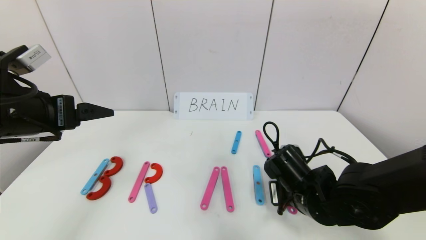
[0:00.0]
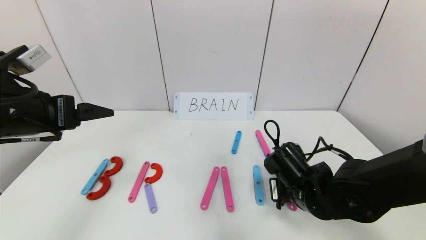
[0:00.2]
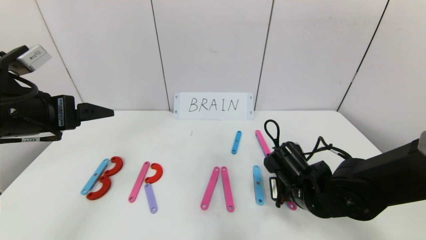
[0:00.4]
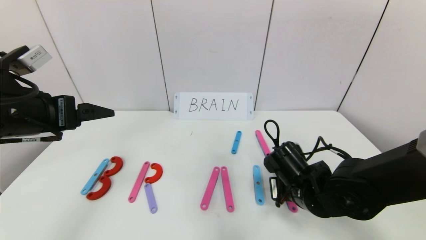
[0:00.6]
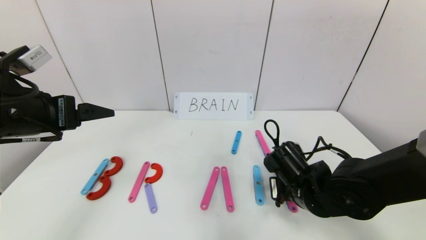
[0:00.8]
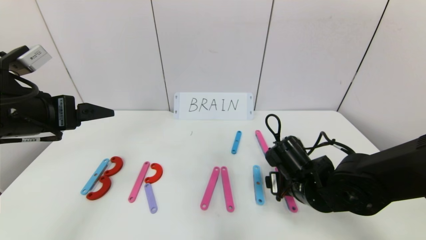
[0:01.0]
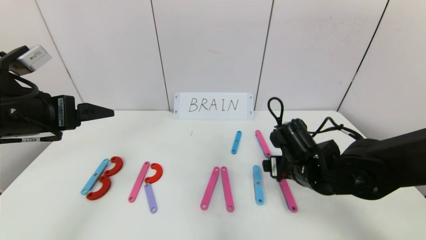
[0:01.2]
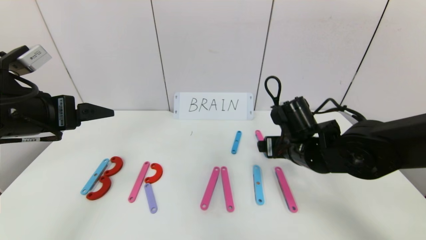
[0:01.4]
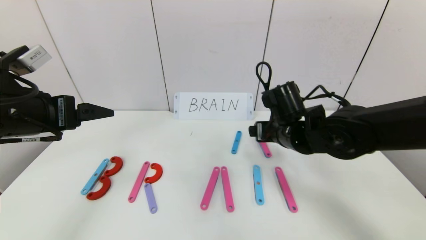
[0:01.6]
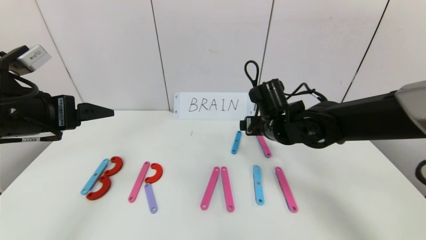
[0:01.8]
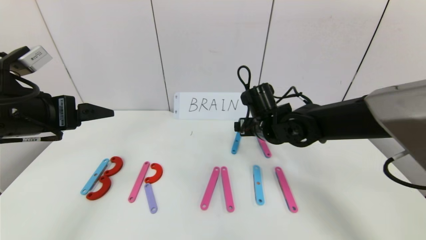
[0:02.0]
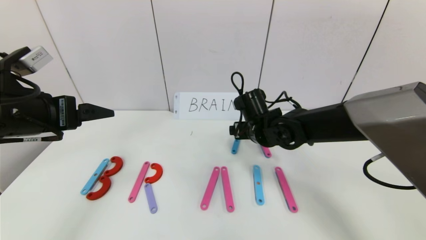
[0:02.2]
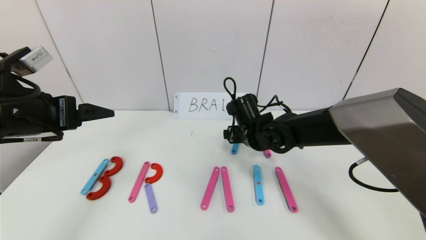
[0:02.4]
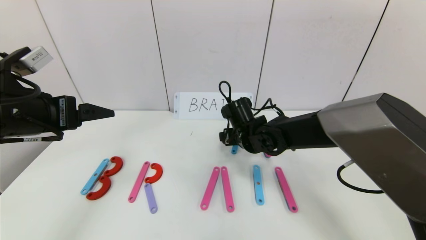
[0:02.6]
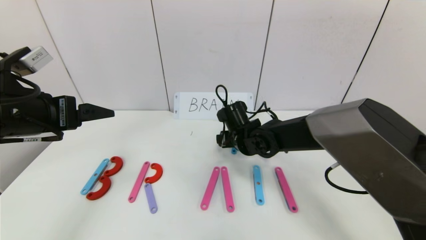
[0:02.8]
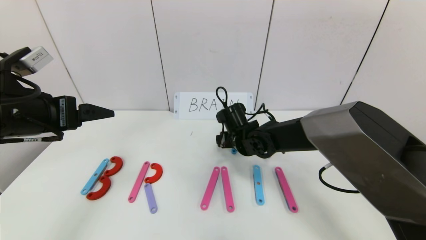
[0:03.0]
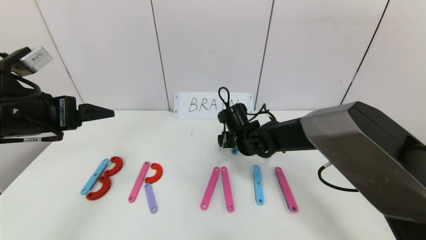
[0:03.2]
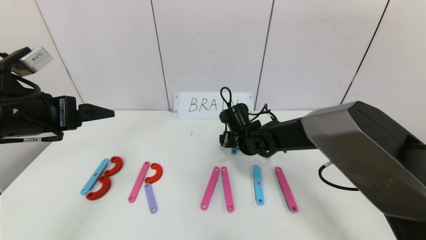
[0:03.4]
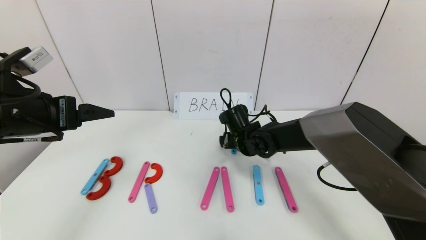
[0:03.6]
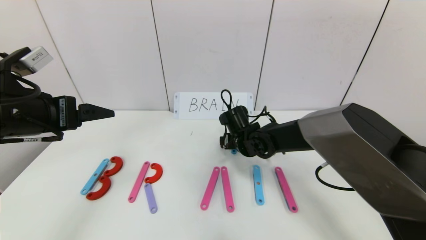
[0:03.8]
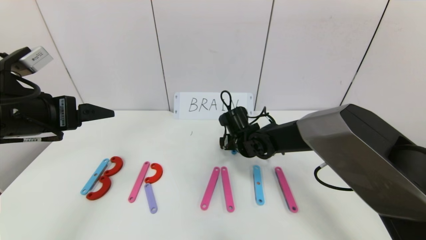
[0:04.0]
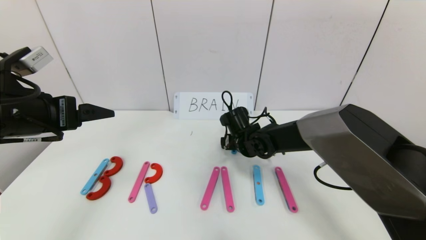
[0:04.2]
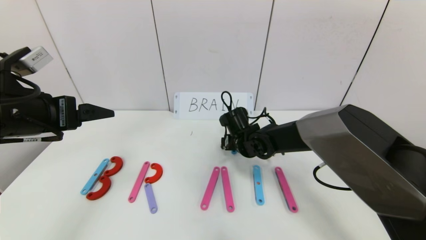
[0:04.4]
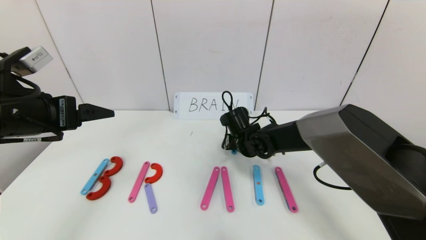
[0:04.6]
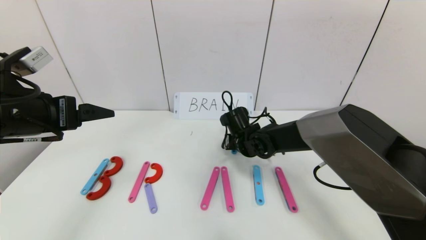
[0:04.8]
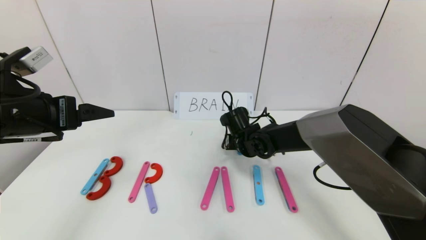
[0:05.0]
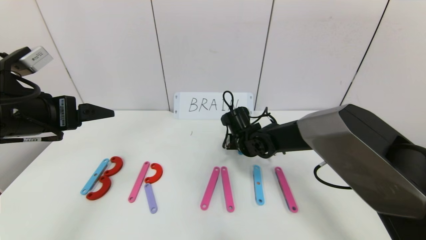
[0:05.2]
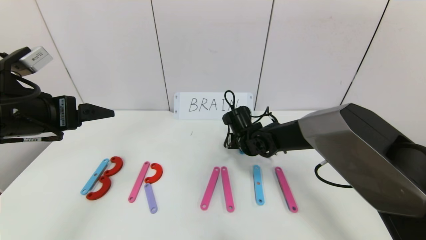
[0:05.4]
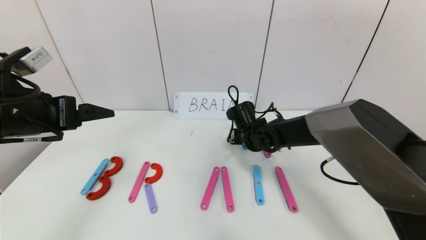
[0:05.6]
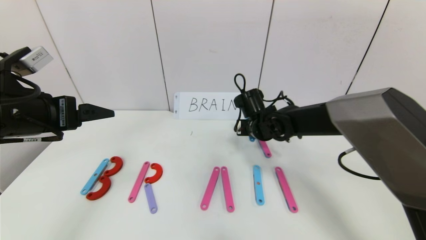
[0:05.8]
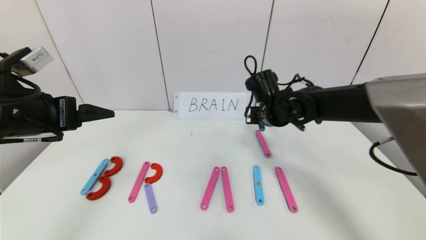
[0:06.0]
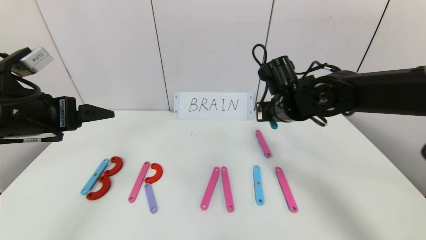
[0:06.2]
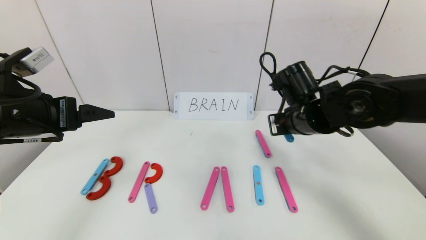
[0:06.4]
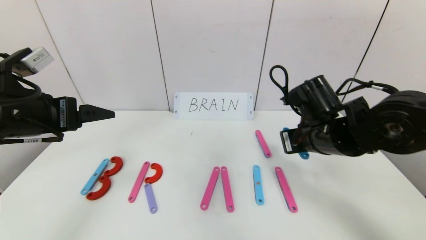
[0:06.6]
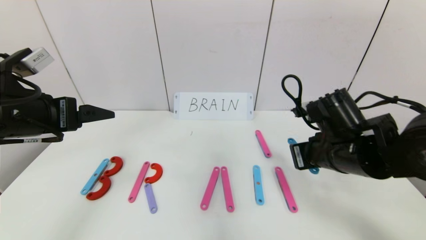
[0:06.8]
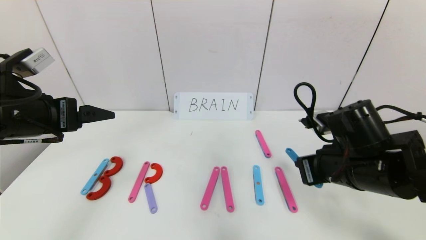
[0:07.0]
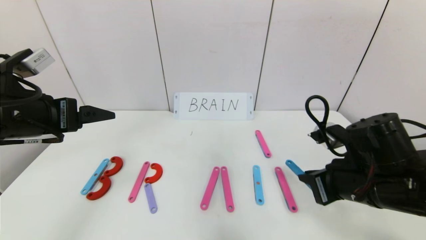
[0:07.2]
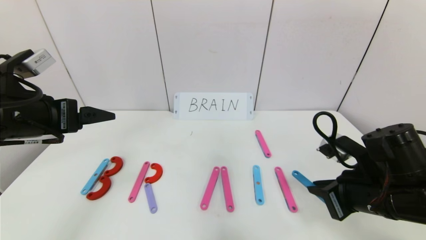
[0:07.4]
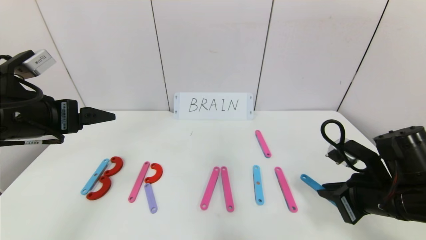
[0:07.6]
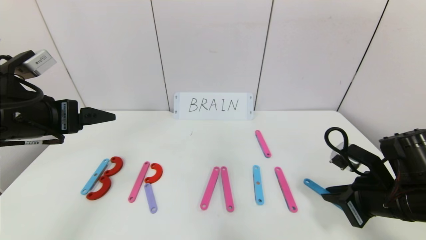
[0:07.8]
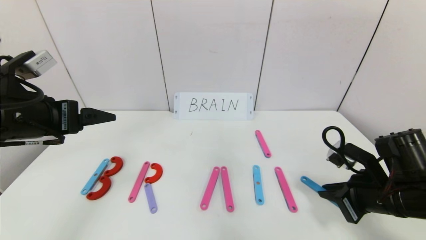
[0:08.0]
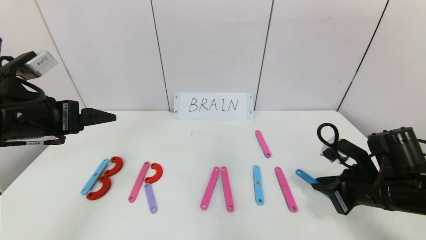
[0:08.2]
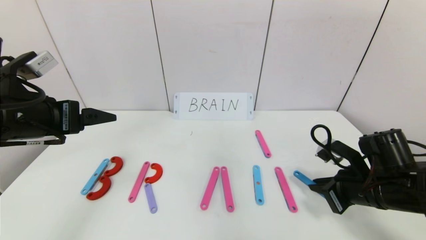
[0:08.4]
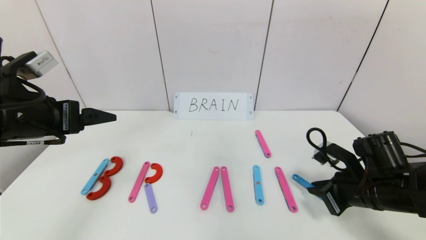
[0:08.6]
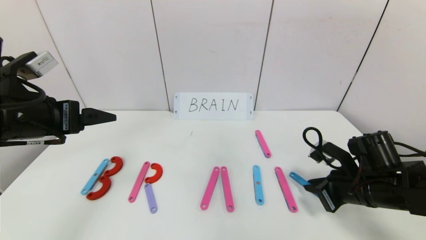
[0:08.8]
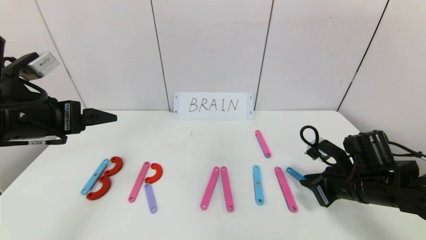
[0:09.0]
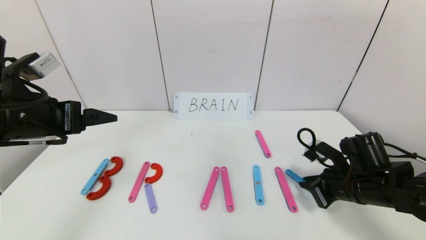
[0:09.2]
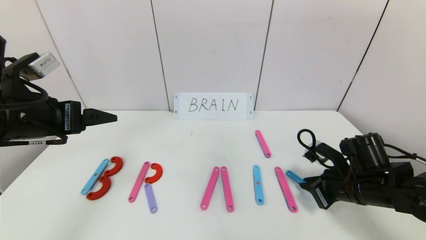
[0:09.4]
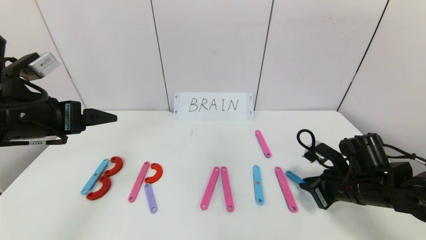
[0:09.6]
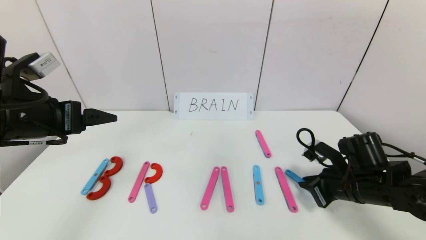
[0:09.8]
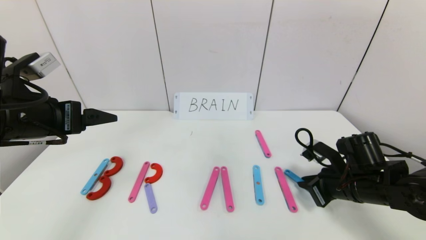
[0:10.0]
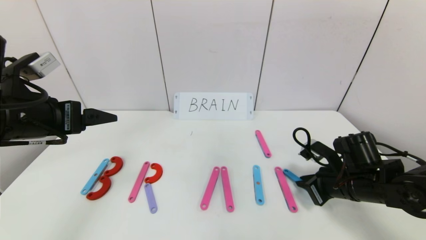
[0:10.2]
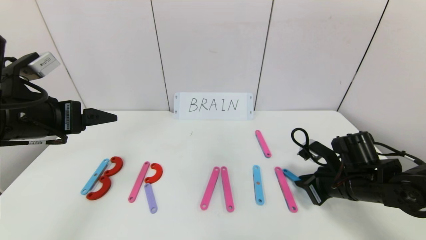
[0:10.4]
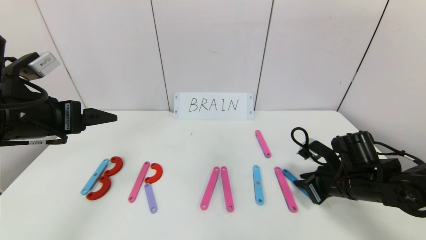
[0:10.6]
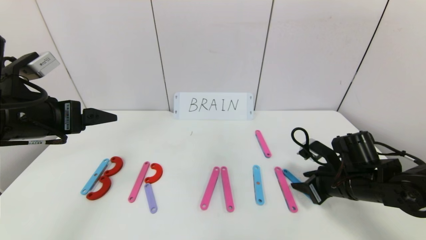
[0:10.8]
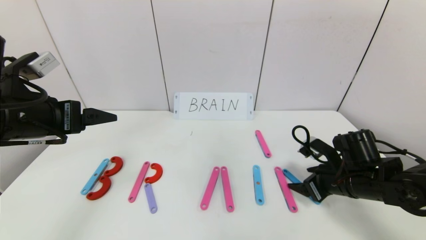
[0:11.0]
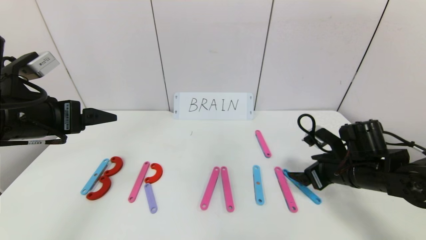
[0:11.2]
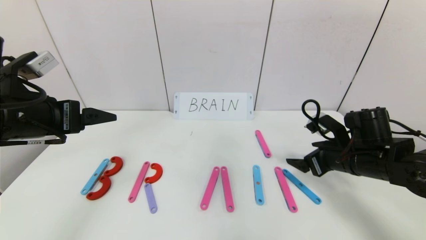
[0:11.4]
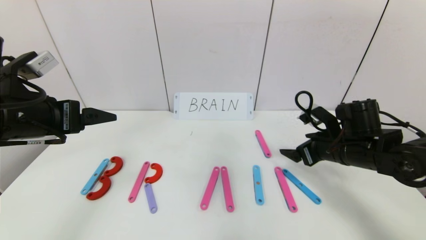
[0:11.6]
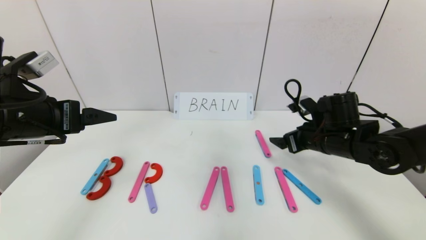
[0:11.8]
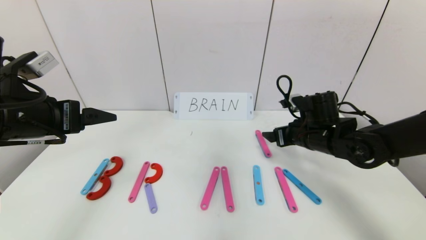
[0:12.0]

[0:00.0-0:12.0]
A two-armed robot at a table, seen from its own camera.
Task of the whole recording: rearrange the word baai as brain.
0:00.0 to 0:01.6: The right gripper heads forward and upward, covering approximately 10 cm, and opens.
0:01.6 to 0:03.0: The right gripper is displaced downward, to the left and forward by about 15 cm.
0:03.0 to 0:04.4: The grippers move only a little.
0:04.4 to 0:06.0: The right gripper travels upward and to the right by roughly 10 cm, and closes its fingers.
0:06.0 to 0:07.6: The right gripper travels backward and to the right by roughly 25 cm.
0:07.6 to 0:09.0: The right gripper goes some 5 cm forward.
0:09.0 to 0:10.4: There are only small adjustments of the grippers.
0:10.4 to 0:12.0: The right gripper travels forward, to the left and upward by roughly 10 cm, and opens up.

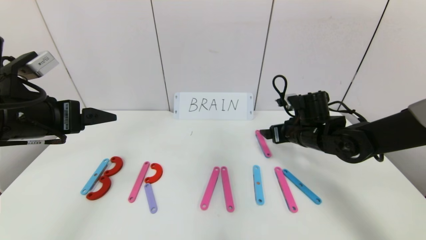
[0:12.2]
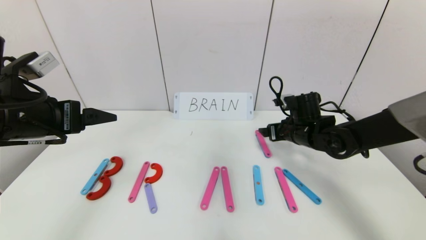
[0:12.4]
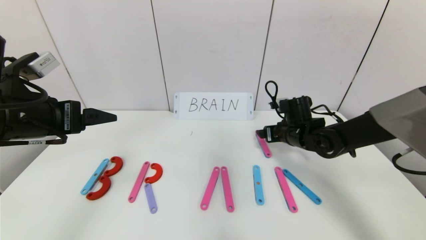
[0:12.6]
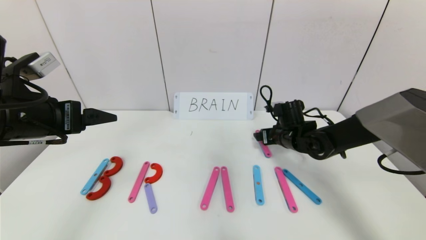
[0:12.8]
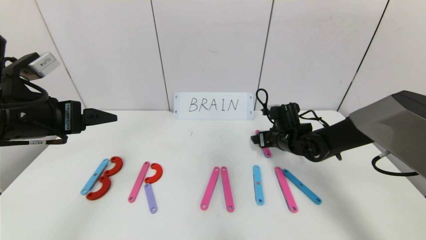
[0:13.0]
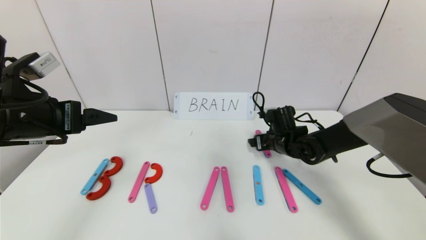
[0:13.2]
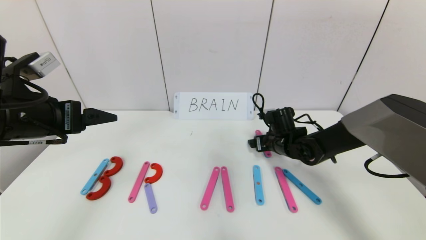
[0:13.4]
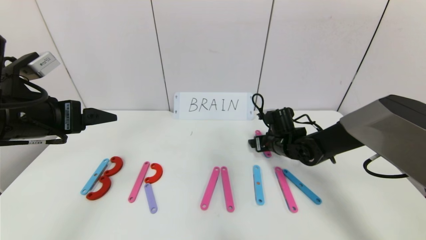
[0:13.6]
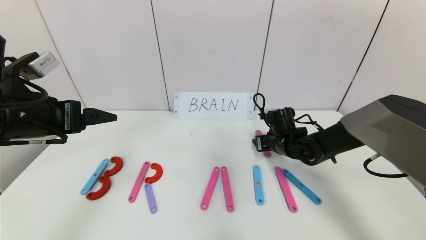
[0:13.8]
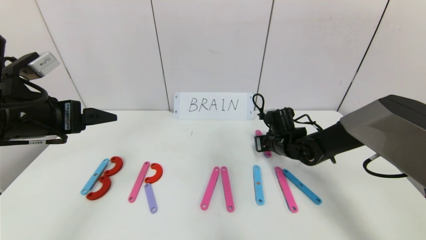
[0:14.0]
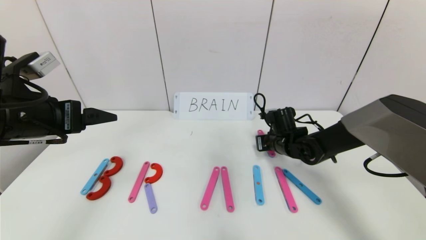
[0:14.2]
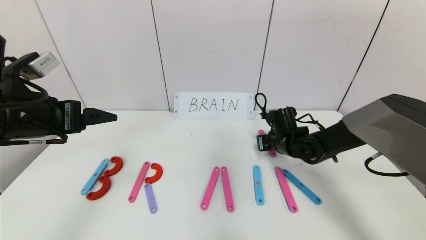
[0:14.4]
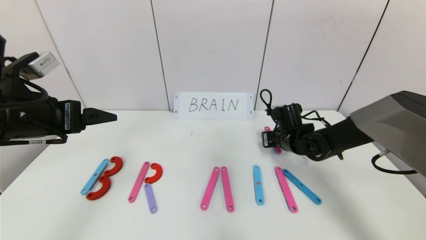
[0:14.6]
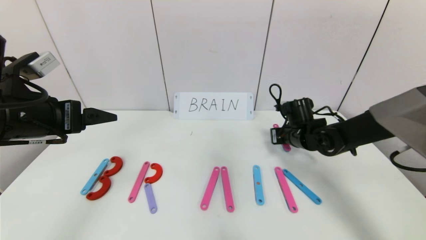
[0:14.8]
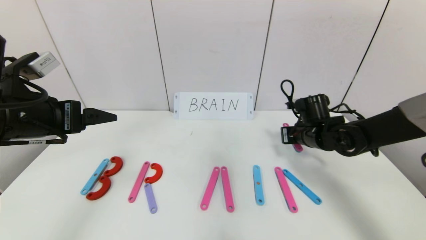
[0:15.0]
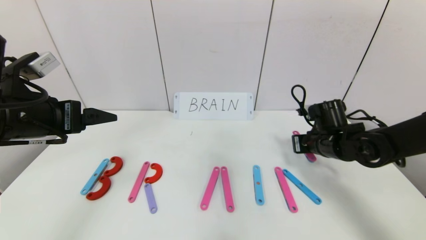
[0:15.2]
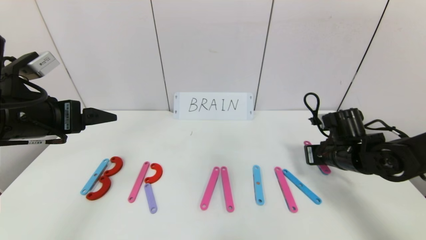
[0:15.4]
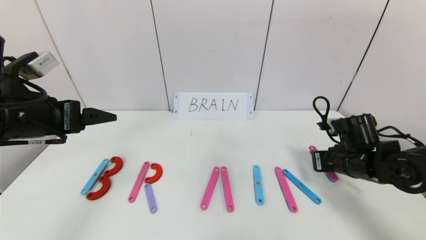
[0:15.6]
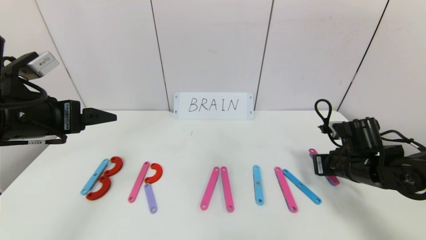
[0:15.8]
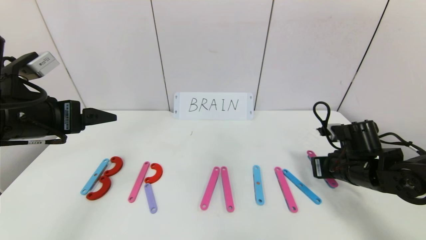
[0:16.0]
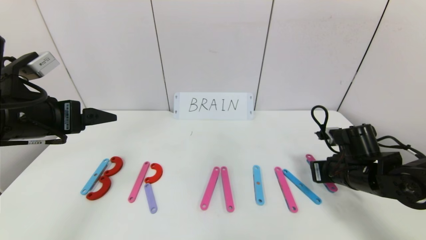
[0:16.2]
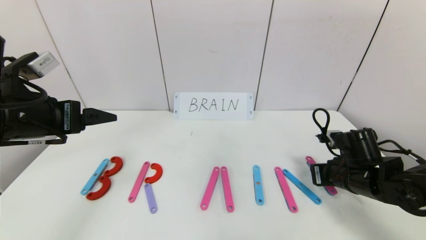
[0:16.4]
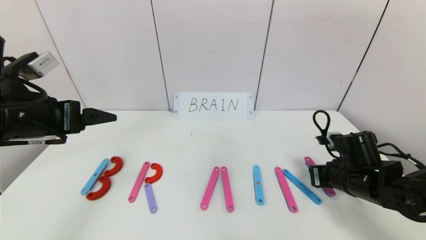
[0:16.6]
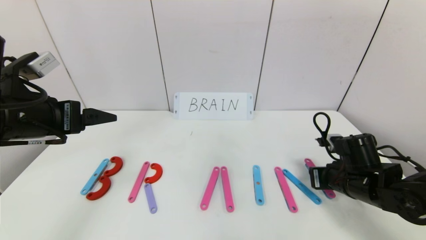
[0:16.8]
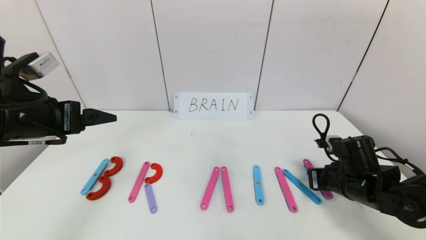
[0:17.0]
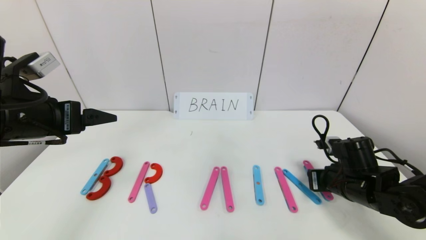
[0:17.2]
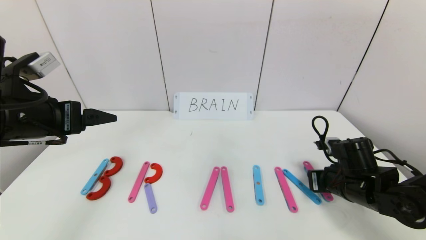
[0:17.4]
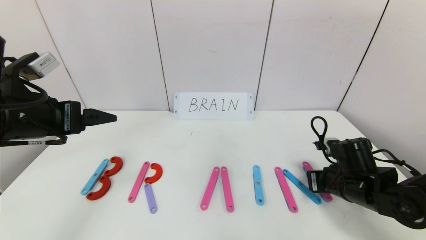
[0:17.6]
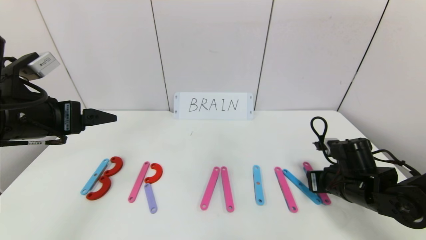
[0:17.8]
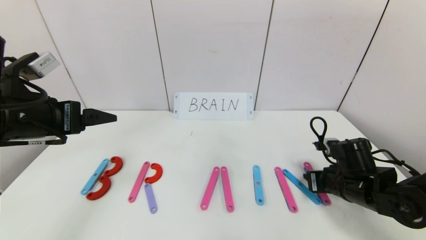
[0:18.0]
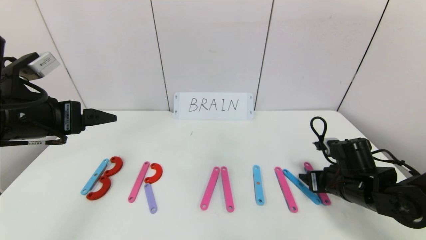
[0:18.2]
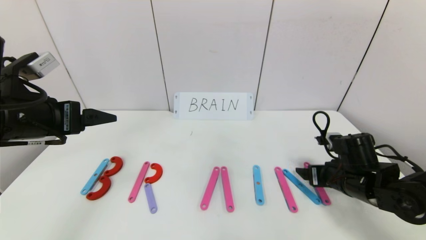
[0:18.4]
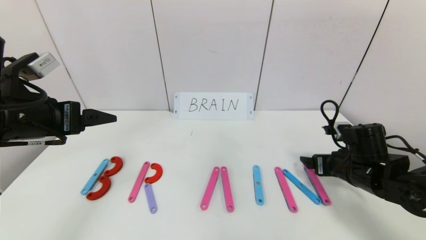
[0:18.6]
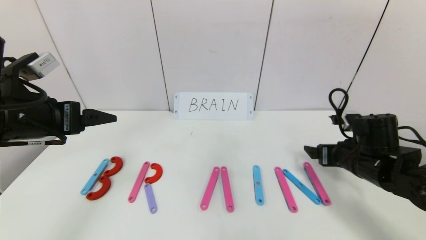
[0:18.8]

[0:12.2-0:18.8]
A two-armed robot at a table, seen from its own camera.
Task of the whole recording: rearrange the word baai as brain.
Step, 0:12.2 to 0:18.6: Place the character N after character I.
0:12.2 to 0:13.8: The right gripper travels downward by about 5 cm, and closes.
0:13.8 to 0:15.4: The right gripper is displaced to the right and backward by approximately 15 cm, and closes up.
0:15.4 to 0:17.2: The right gripper shifts by approximately 5 cm.
0:17.2 to 0:18.8: The right gripper heads upward, covering about 5 cm, and opens its fingers.
